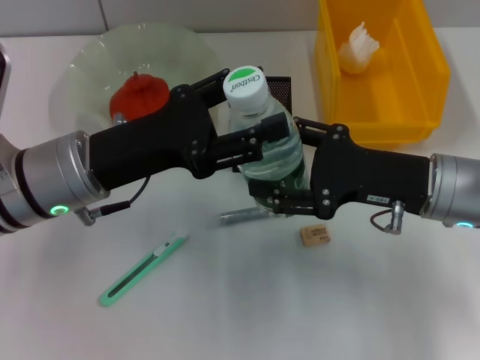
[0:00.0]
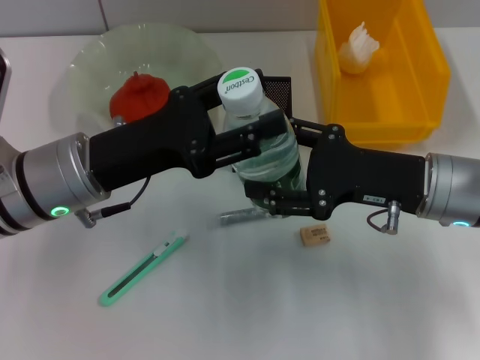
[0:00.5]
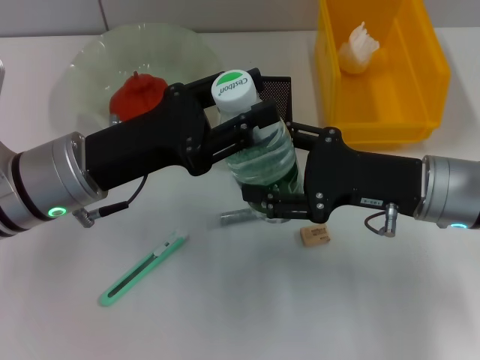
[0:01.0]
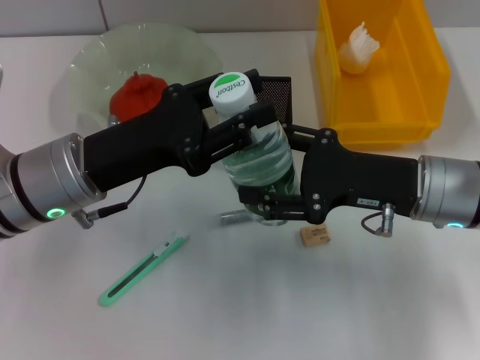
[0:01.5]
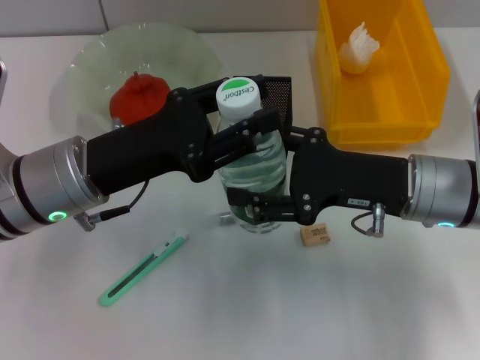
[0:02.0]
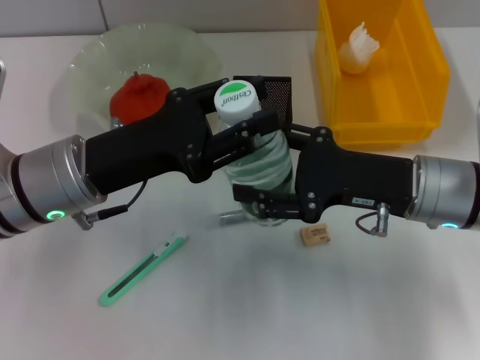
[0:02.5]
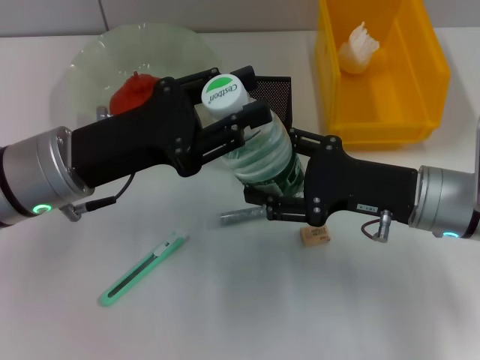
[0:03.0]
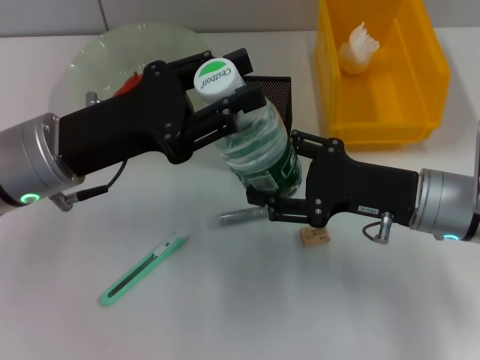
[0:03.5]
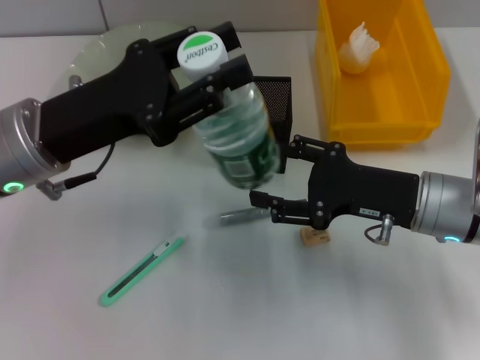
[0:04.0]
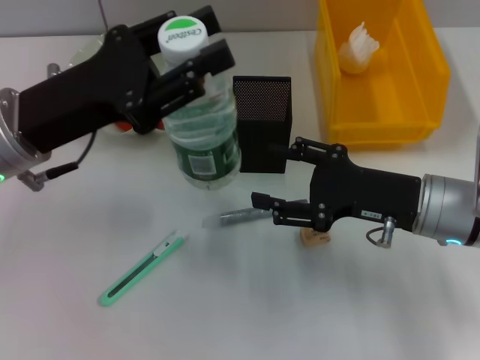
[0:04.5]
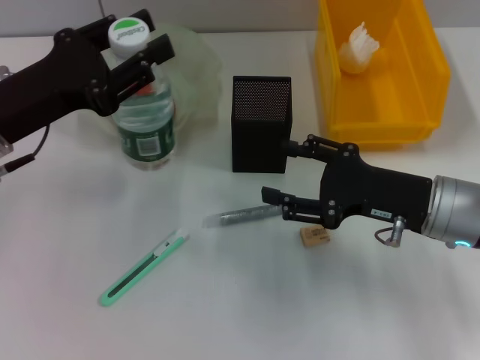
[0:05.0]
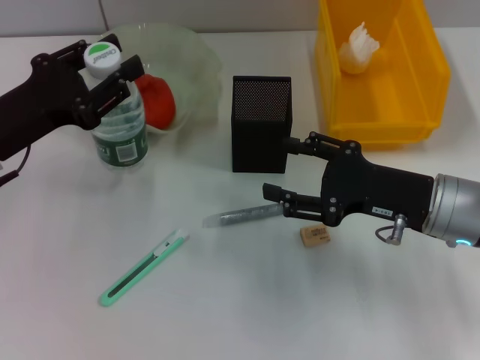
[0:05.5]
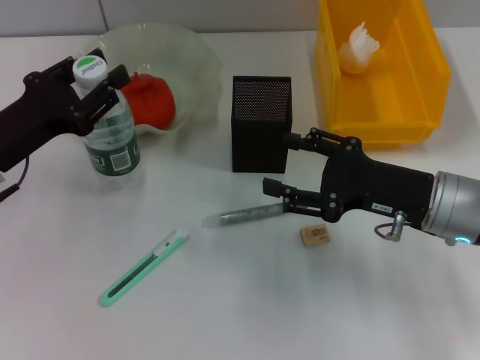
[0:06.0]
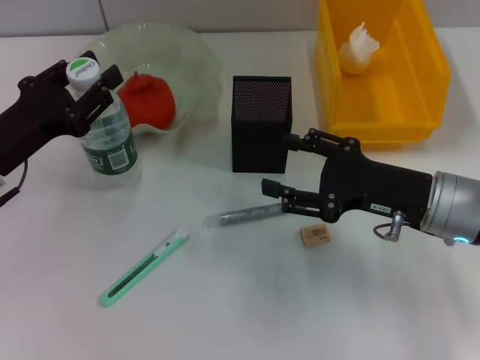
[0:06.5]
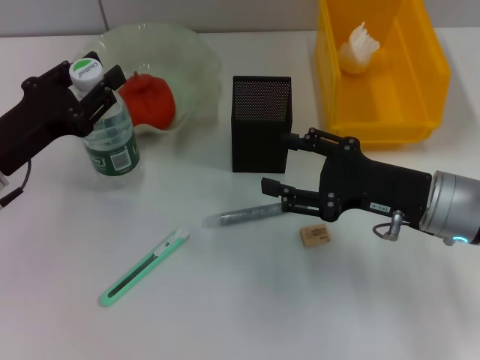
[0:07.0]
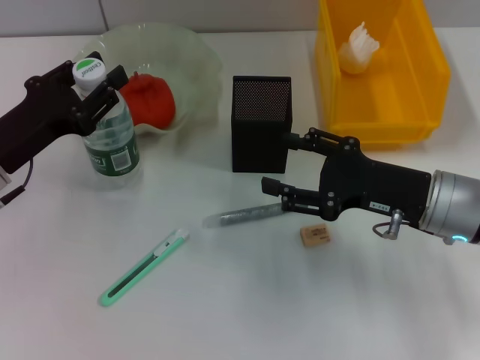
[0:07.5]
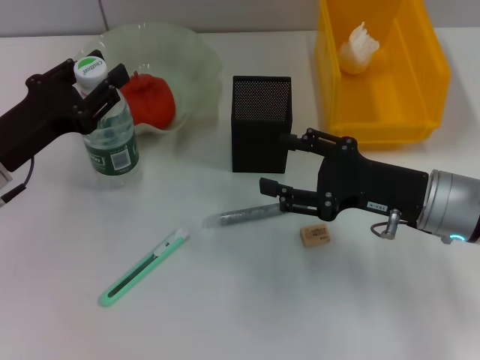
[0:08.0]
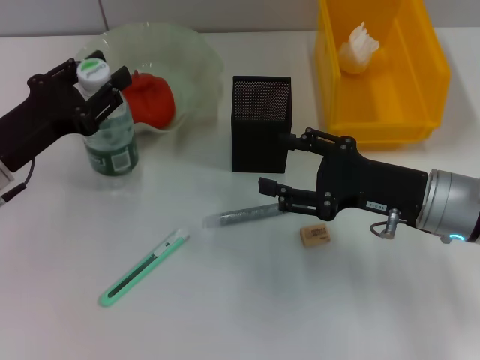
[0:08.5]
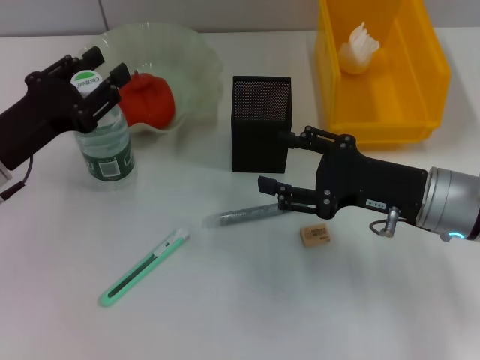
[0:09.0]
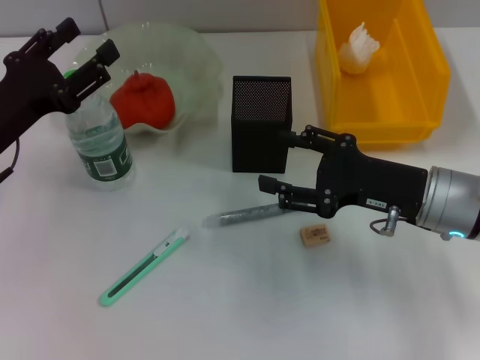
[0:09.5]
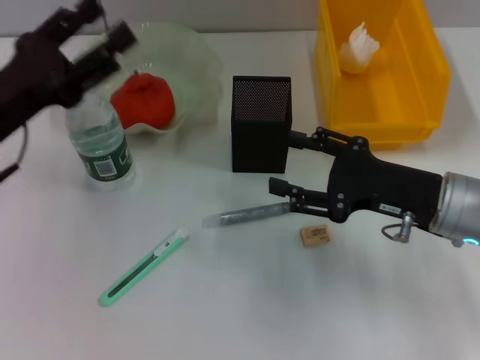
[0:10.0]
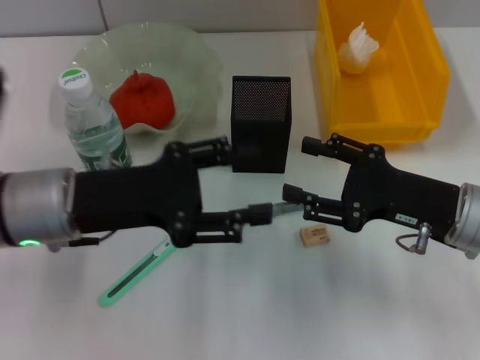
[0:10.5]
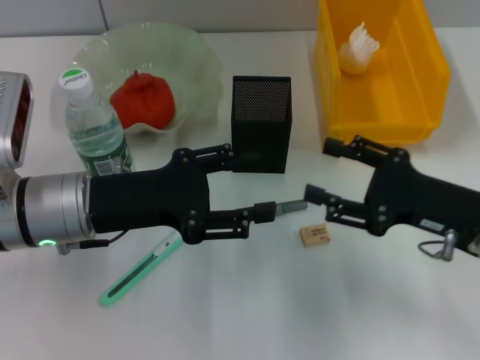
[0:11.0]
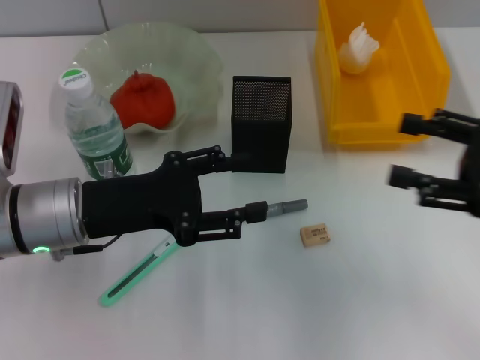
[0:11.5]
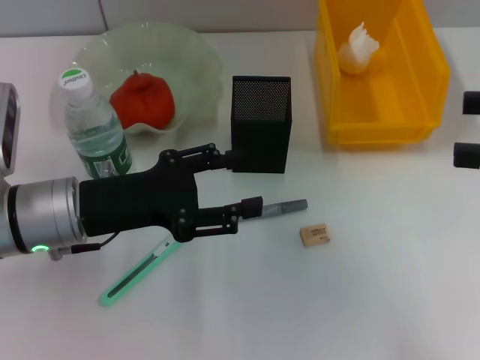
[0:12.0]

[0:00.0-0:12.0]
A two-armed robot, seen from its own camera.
Step, 0.0 to 4.0 s: Pass the water bottle from the right hand to the left hand.
Step, 4.5 to 9.0 s: Place the water bottle on the table with the left hand.
0.0 to 2.0 s: The left gripper closes.
4.0 to 6.0 s: The left gripper goes about 10 cm to the left and downward.
6.0 to 8.0 s: The two grippers keep their place.
8.0 to 10.0 s: The left gripper opens.
10.0 to 12.0 s: The left gripper goes about 5 cm to the right; the right gripper moves upward and to the right, about 20 cm.

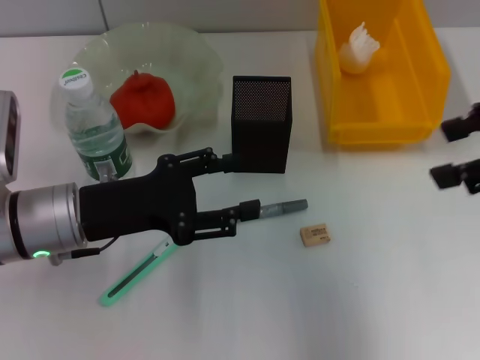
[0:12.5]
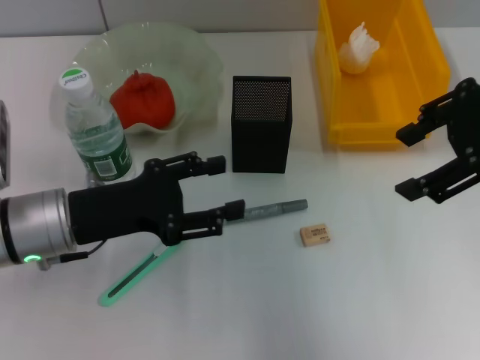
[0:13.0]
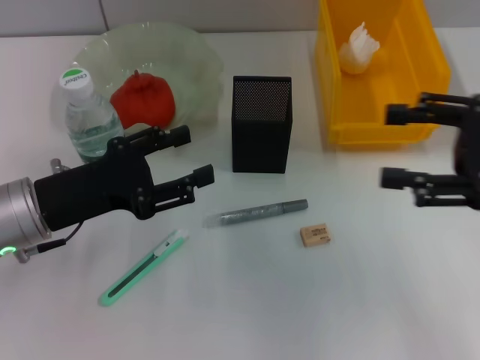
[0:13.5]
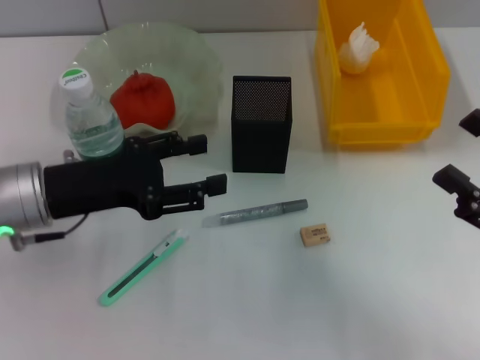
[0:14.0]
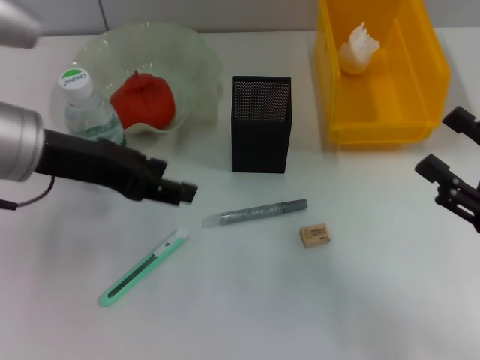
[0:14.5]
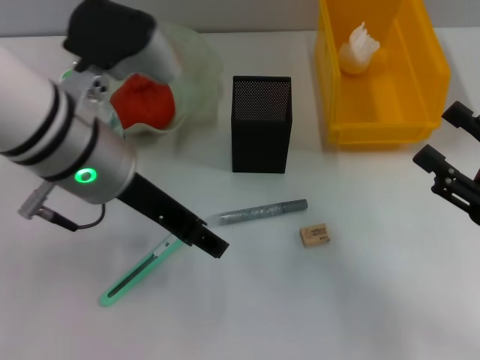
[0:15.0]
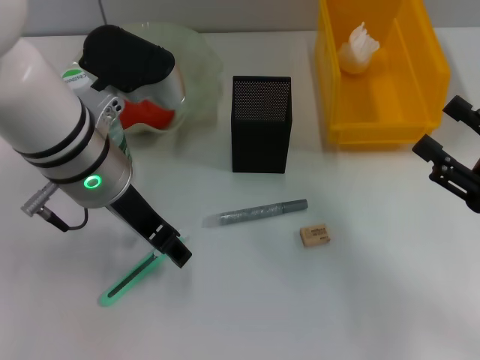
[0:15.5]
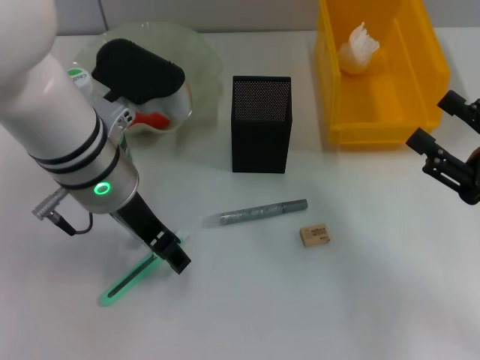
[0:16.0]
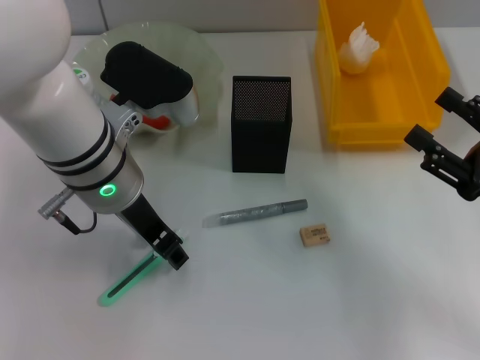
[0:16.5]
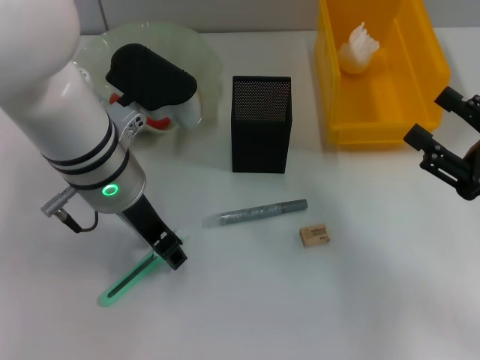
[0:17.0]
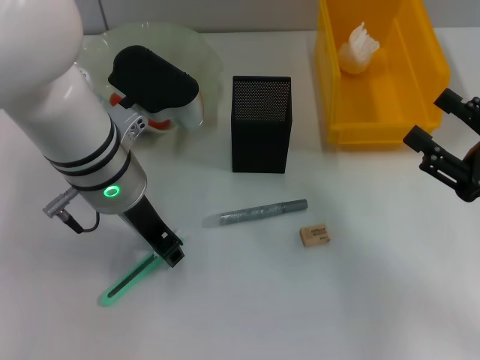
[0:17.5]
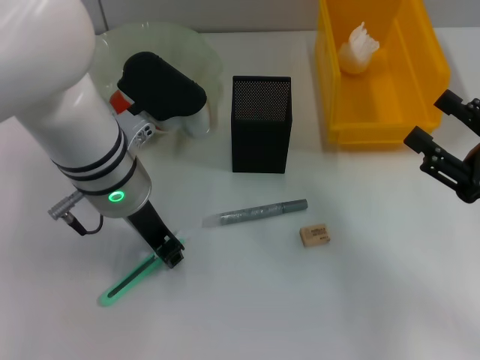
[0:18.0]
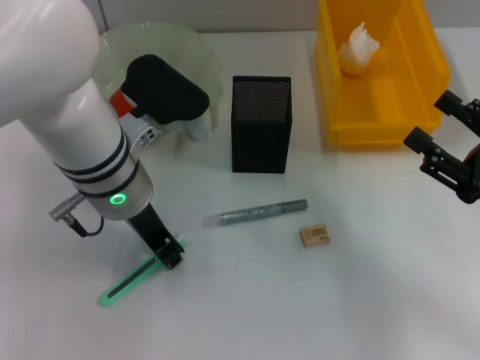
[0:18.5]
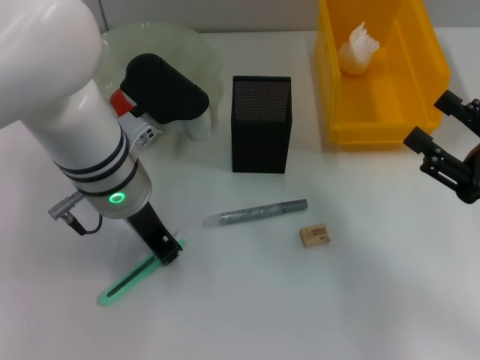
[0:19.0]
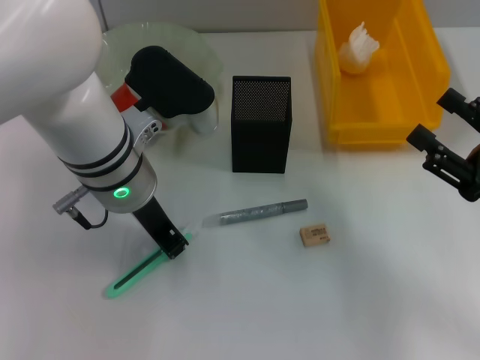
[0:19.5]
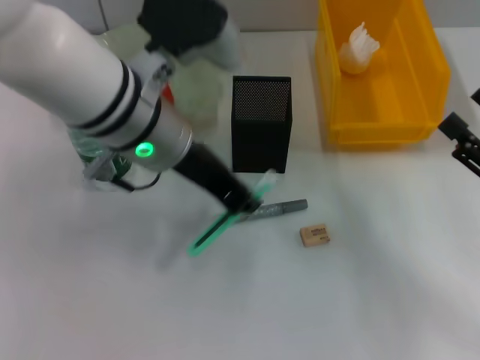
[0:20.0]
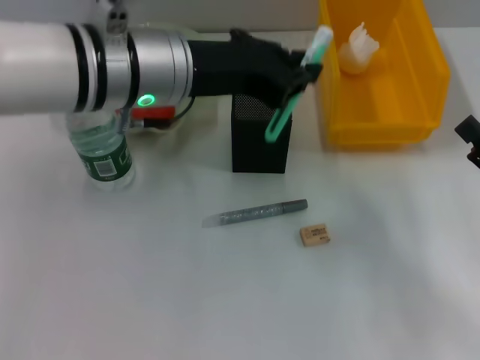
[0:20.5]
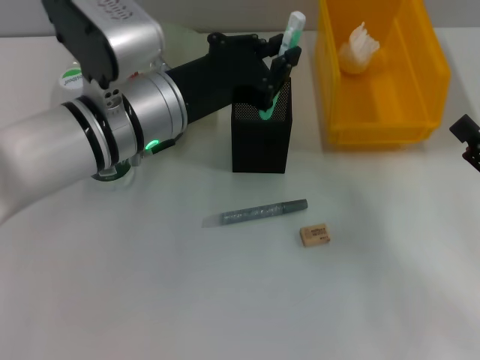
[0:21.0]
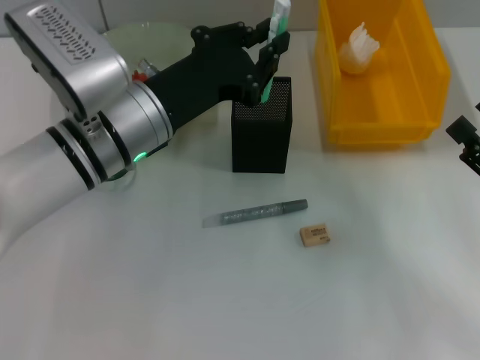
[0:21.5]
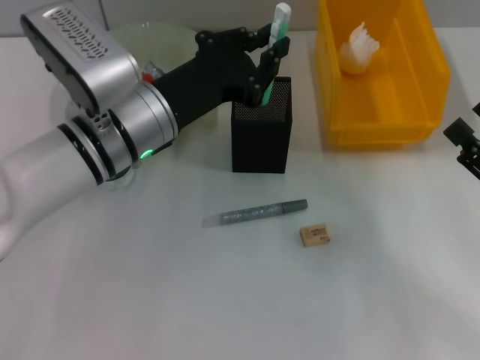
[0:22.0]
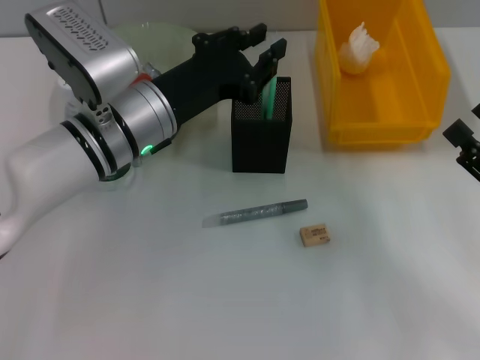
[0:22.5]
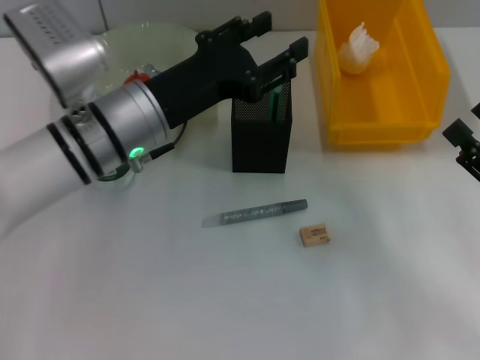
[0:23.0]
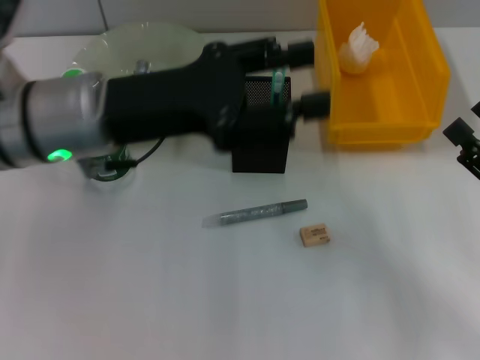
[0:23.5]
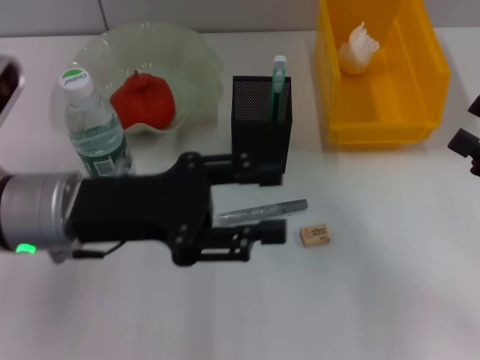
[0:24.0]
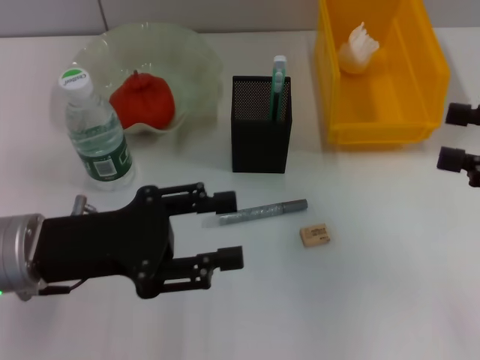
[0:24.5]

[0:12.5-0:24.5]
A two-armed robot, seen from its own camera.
Step, 12.5 to 18.5 s: Grab the blue utility knife with the left hand.
Step, 19.0 to 22.5 s: Place the blue utility knife into the pen holder with the left hand.
12.5 to 14.5 s: The right gripper goes about 20 cm downward and backward. Meanwhile the left gripper moves upward, roughly 10 cm.
14.5 to 16.5 s: The left gripper shifts some 10 cm to the right.
16.5 to 18.5 s: The left gripper closes up.
18.5 to 20.5 s: The left gripper heads upward, covering about 5 cm.
20.5 to 22.5 s: The left gripper moves downward, about 10 cm.
22.5 to 24.5 s: The left gripper moves backward and to the left, about 15 cm, and opens. Meanwhile the right gripper travels upward and forward by approximately 15 cm.

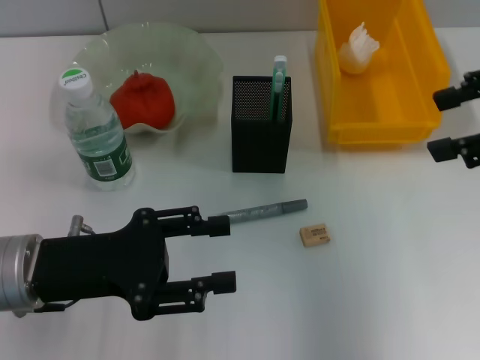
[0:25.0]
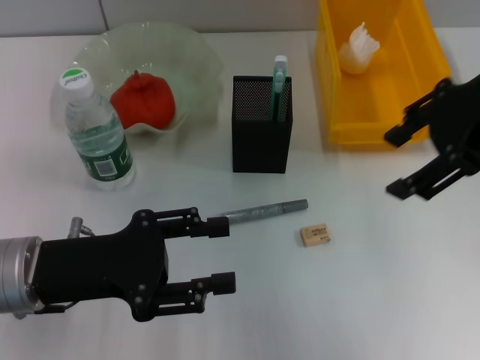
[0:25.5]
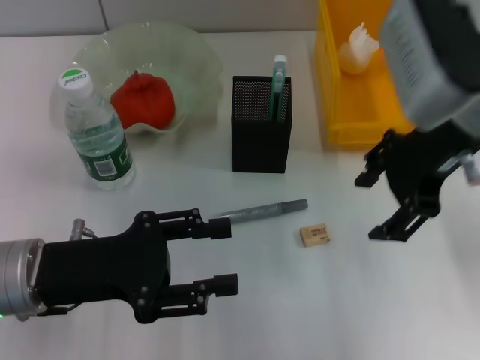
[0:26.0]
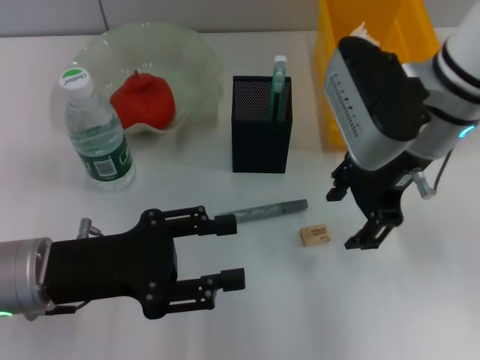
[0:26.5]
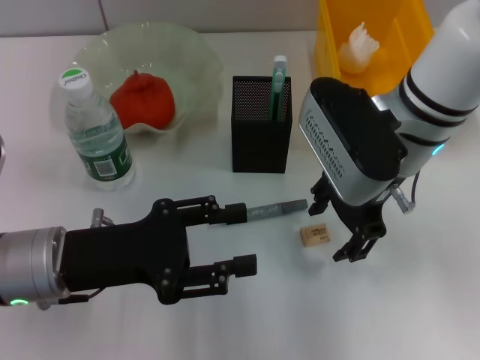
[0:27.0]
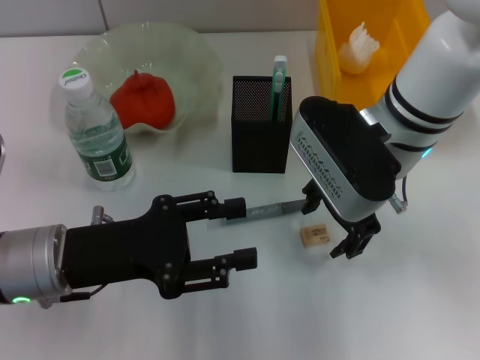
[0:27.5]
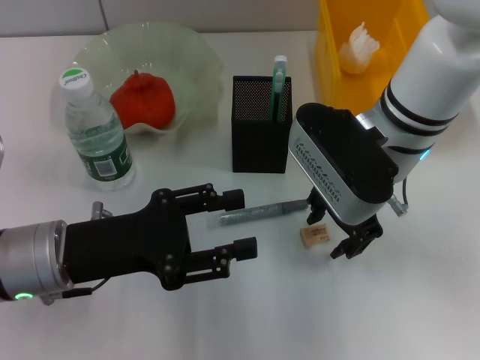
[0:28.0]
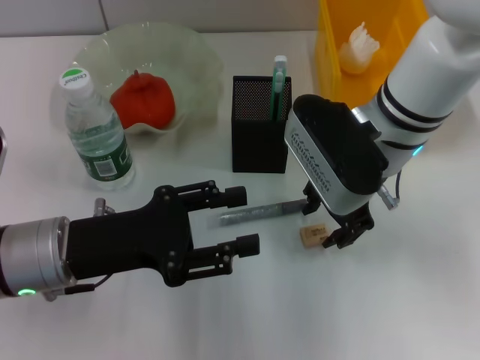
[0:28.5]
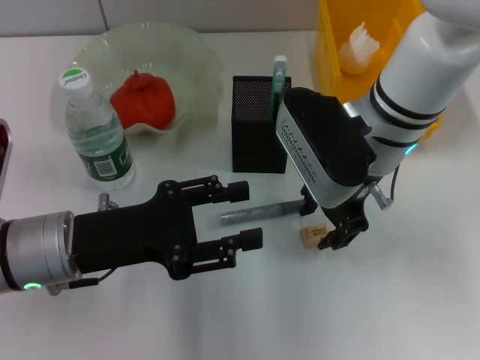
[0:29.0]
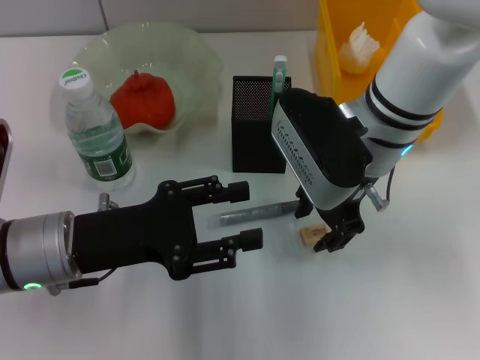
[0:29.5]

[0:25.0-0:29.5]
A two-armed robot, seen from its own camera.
25.0 to 27.0 s: The right gripper moves to the left and downward, some 20 cm.
